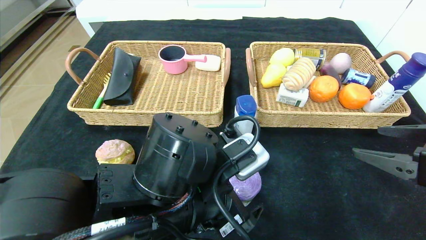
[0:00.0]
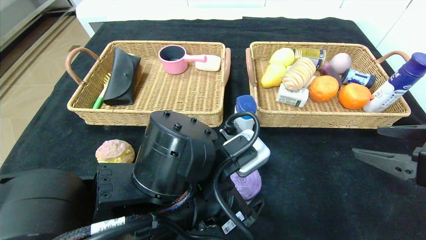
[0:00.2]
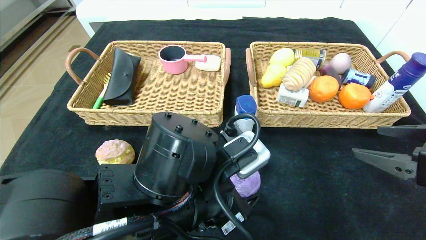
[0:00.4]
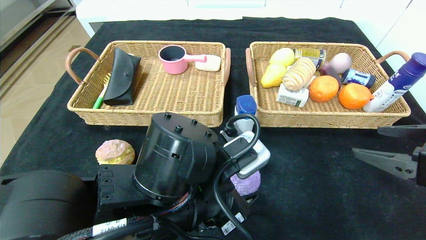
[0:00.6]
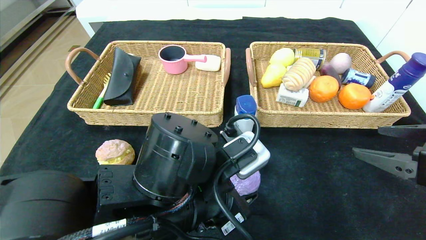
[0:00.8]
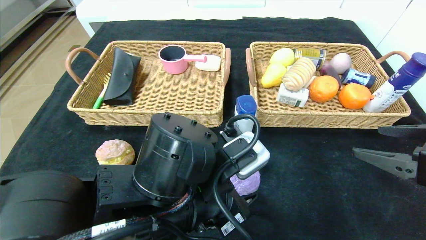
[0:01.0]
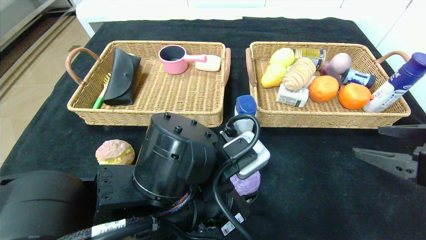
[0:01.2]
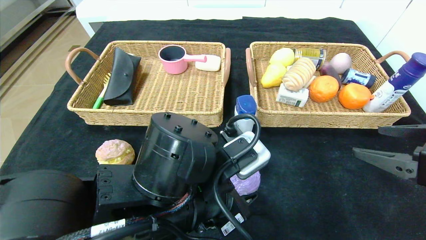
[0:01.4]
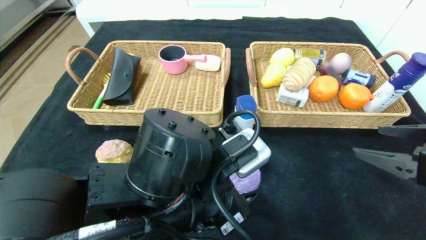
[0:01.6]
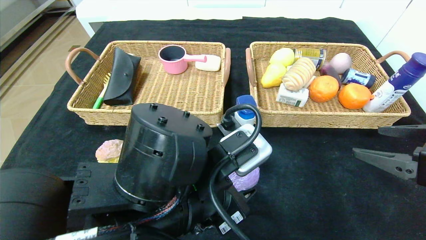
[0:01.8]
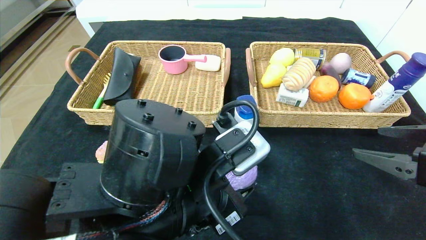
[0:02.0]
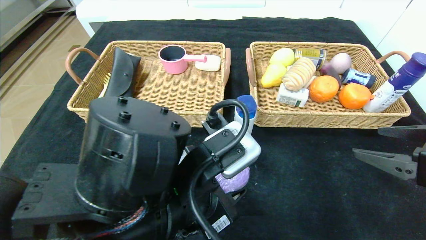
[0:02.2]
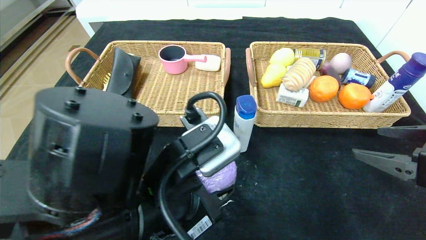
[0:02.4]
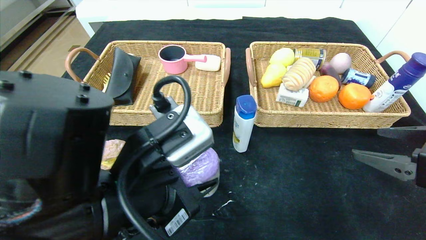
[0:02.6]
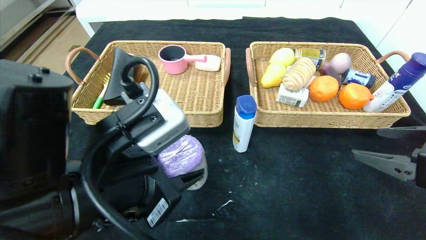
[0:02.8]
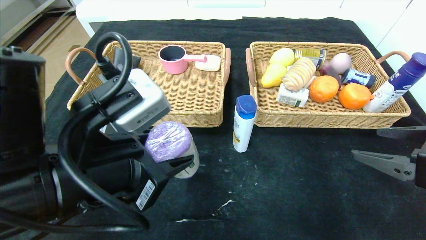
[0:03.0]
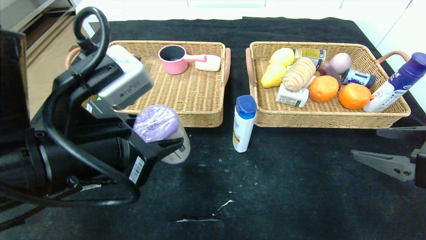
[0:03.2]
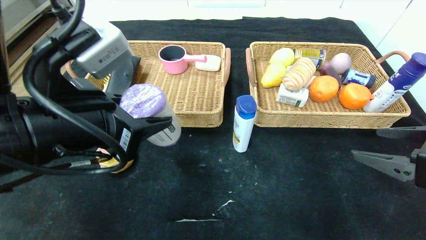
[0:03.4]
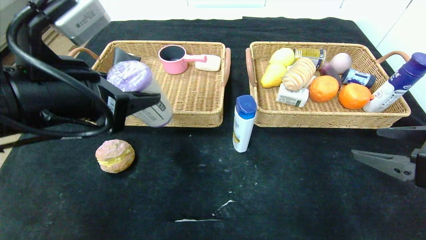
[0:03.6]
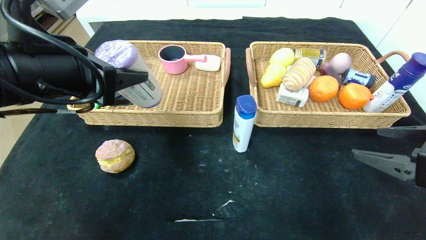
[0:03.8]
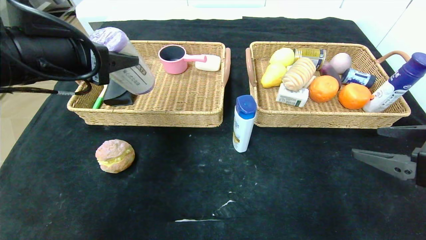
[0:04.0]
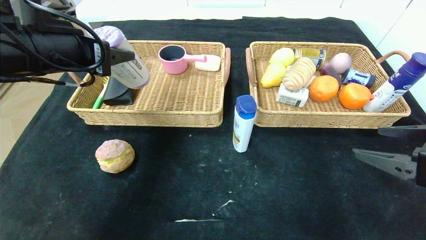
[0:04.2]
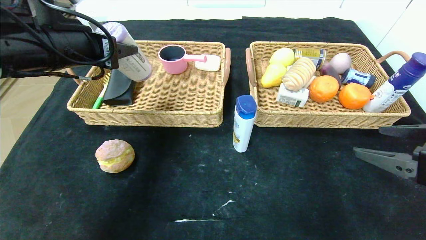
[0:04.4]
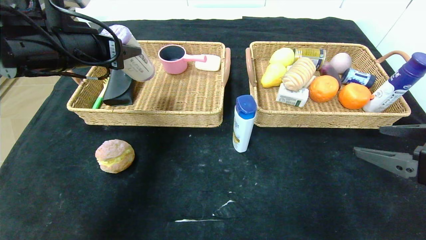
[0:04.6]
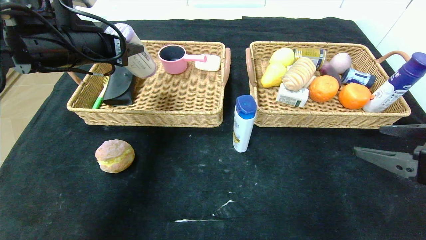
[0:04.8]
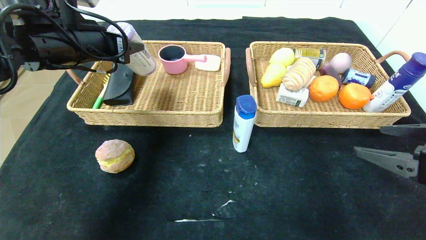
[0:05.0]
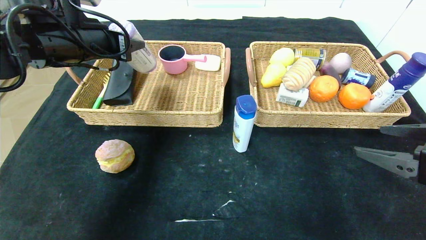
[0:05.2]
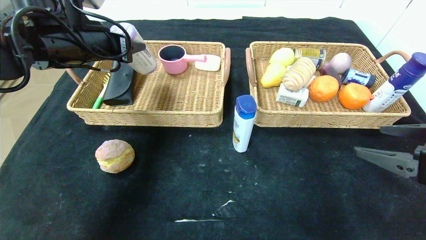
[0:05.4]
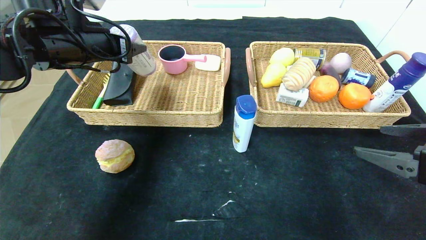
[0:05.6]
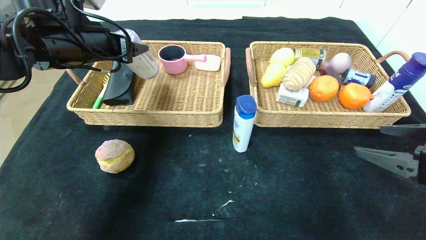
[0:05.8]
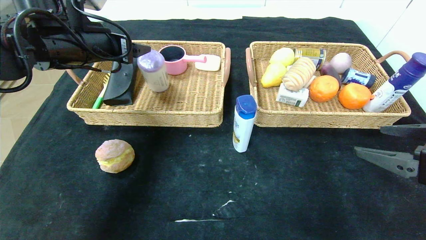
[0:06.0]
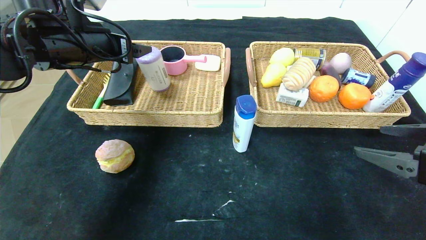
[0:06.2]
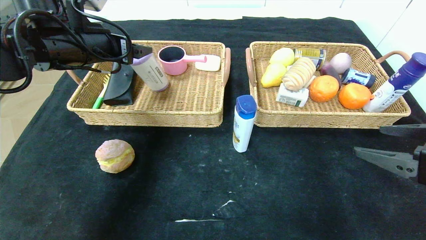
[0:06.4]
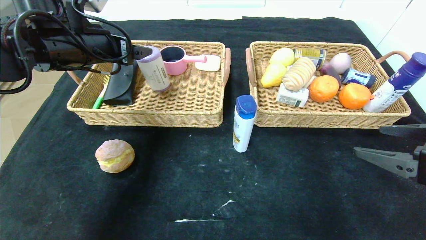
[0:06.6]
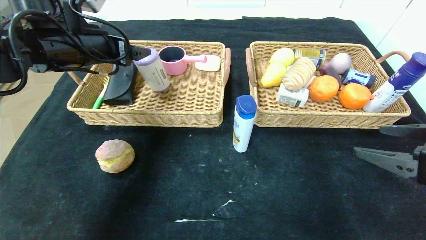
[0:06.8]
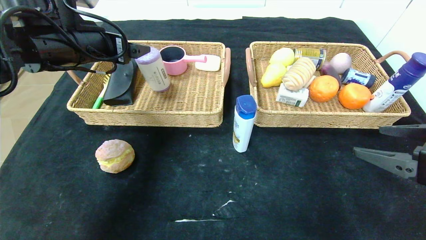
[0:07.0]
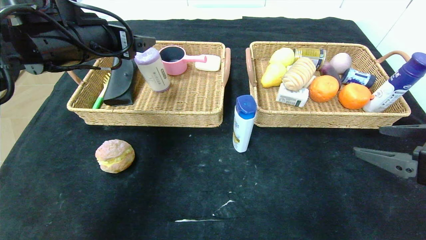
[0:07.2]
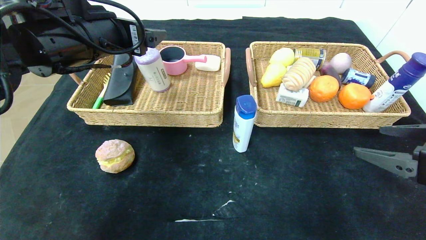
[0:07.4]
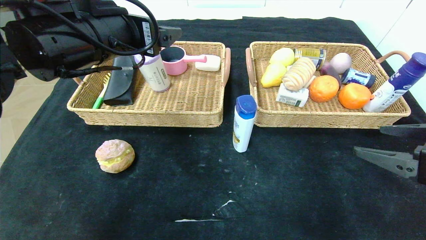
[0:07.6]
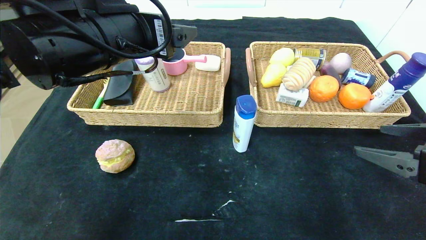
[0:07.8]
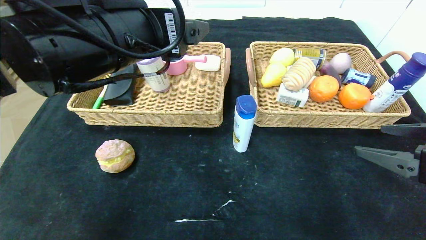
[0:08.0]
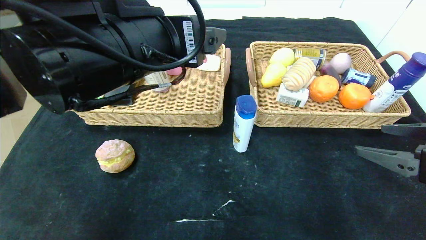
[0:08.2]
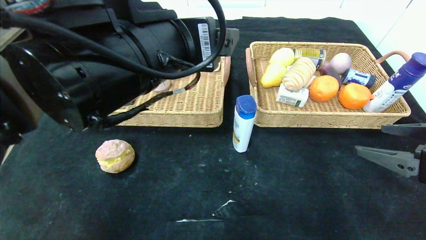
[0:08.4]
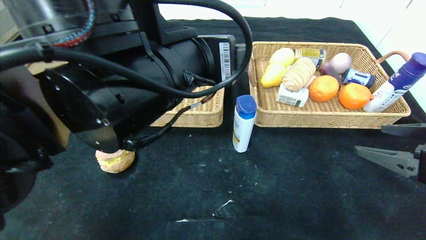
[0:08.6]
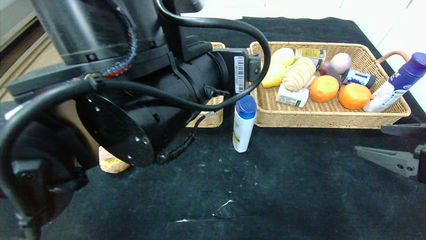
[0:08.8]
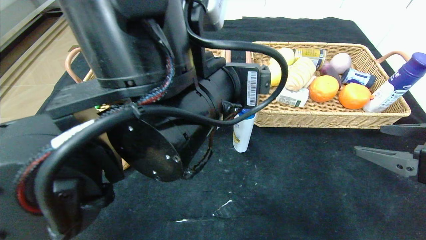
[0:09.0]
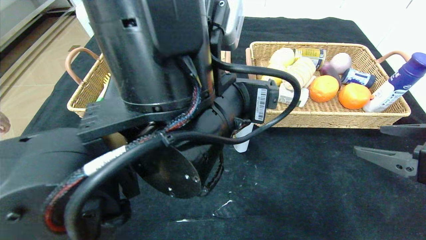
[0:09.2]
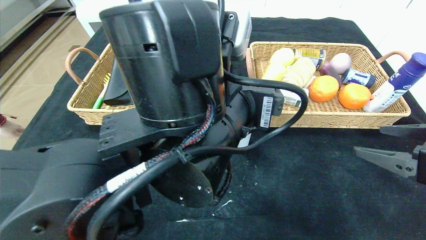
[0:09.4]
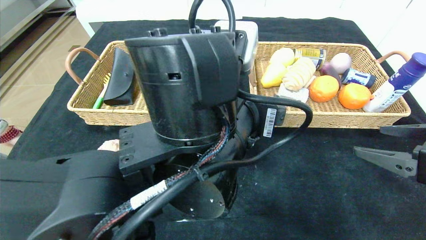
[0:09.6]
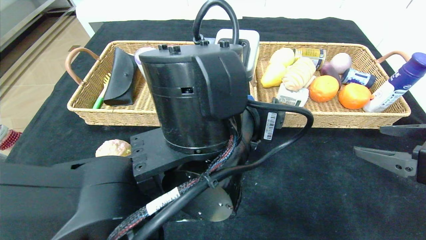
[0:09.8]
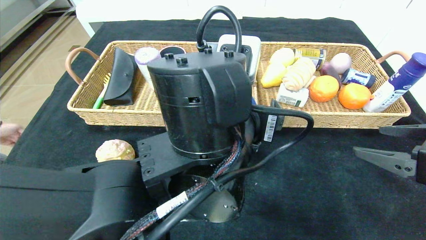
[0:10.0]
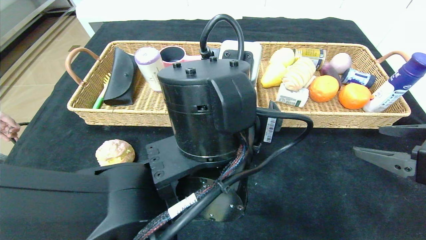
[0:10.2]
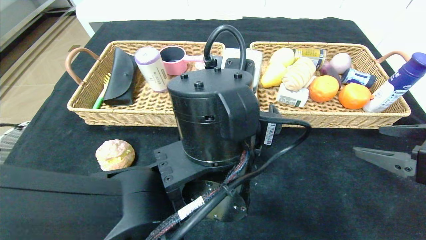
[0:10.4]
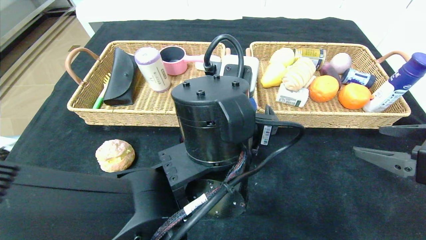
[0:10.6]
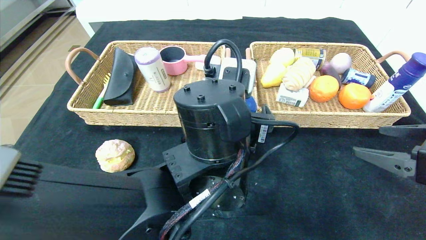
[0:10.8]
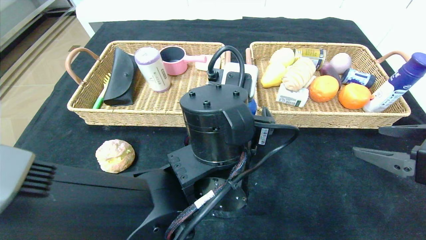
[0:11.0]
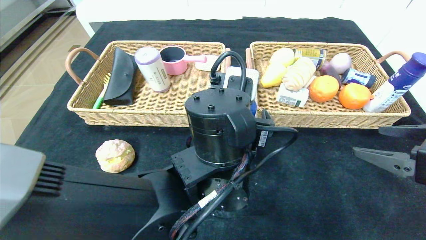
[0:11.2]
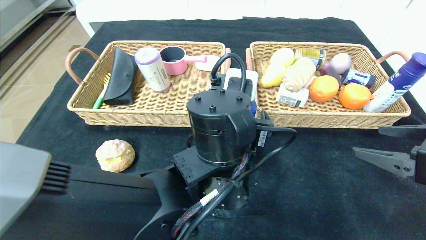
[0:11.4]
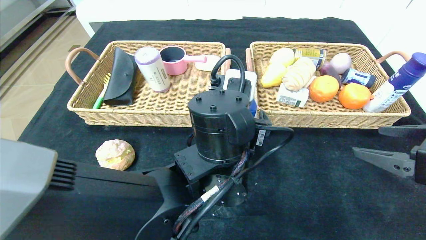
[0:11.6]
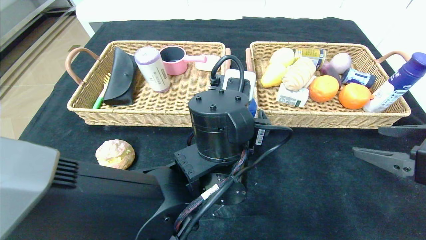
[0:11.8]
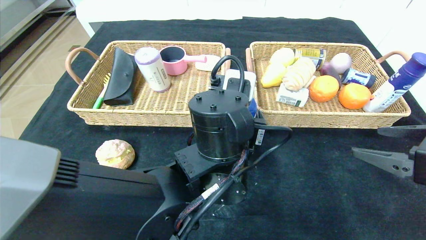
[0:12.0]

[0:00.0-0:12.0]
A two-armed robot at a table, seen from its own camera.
Step, 0:00.0 to 0:10.0: Pick up the purple garbage bag and put it in the left basket.
0:00.0 to 0:01.6: The left gripper closes.
0:01.6 to 0:03.0: The left gripper goes approximately 10 cm to the left and upward.
0:03.0 to 0:04.4: The left gripper is displaced forward, to the left and upward by some 20 cm.
0:04.4 to 0:06.0: The left gripper goes roughly 5 cm forward, and opens its fingers.
0:06.0 to 0:07.6: The left gripper heads to the right and backward, covering approximately 10 cm.
0:07.6 to 0:09.0: The left gripper is displaced to the right, backward and downward by approximately 15 cm.
0:09.0 to 0:10.4: The left gripper travels downward by about 5 cm.
0:10.4 to 0:12.0: There are only small adjustments of the grippers.

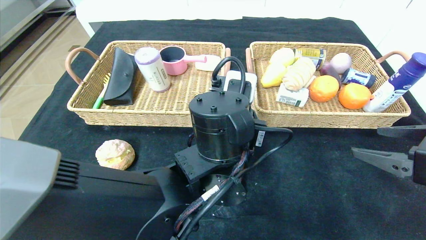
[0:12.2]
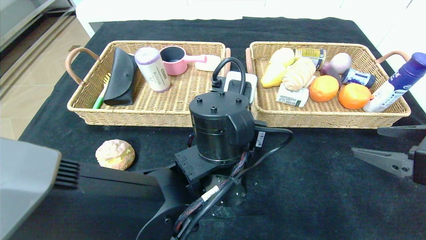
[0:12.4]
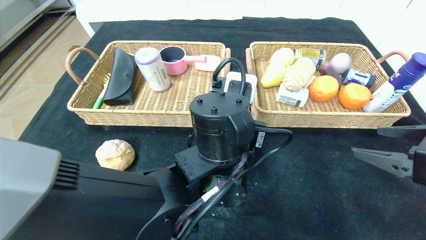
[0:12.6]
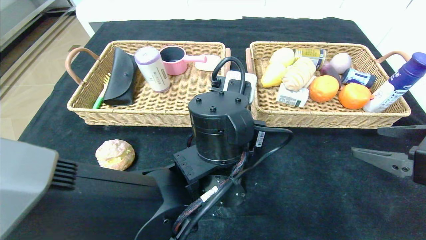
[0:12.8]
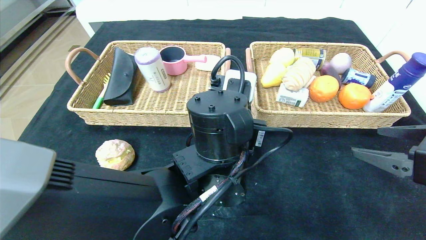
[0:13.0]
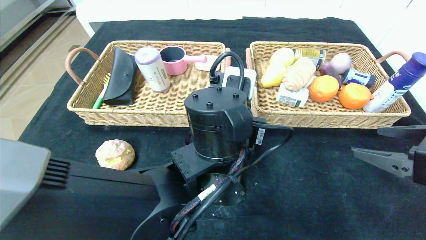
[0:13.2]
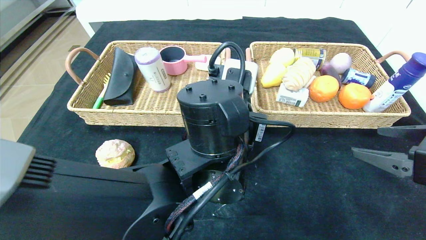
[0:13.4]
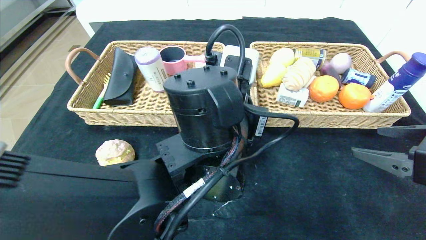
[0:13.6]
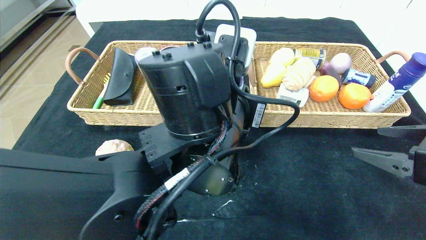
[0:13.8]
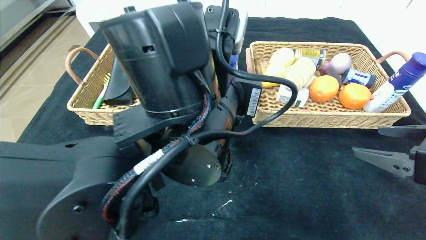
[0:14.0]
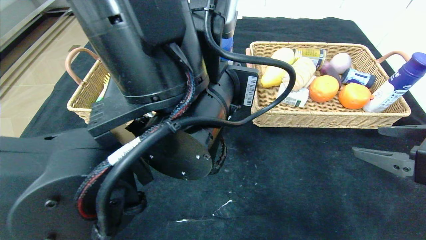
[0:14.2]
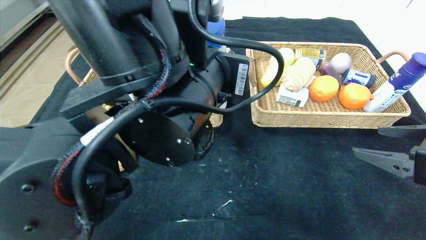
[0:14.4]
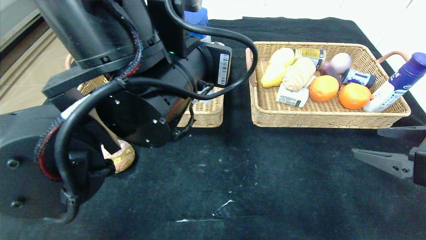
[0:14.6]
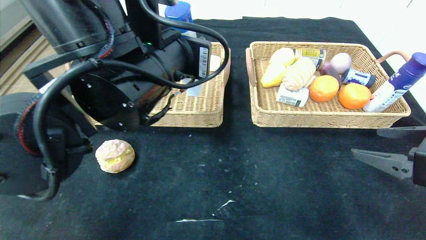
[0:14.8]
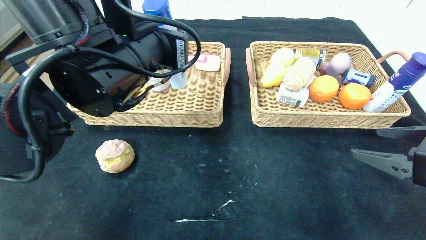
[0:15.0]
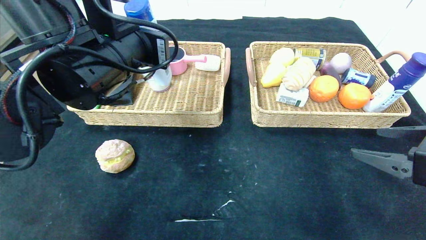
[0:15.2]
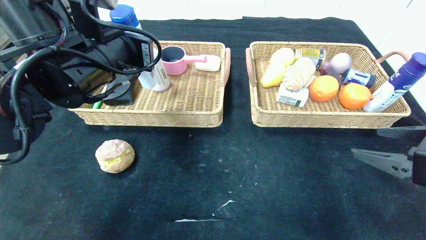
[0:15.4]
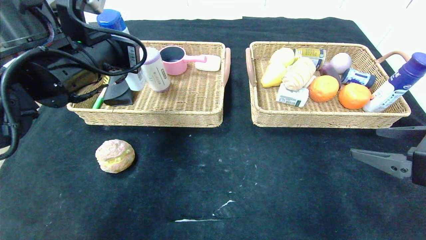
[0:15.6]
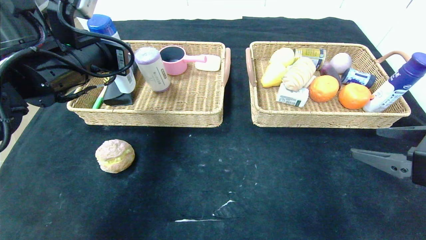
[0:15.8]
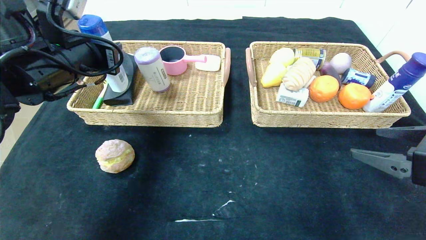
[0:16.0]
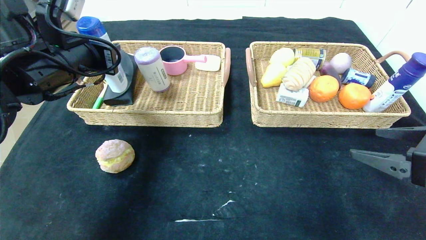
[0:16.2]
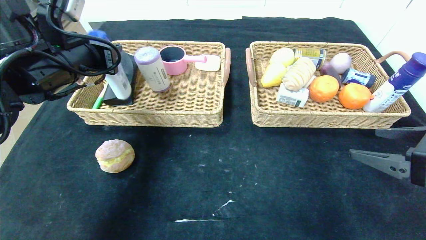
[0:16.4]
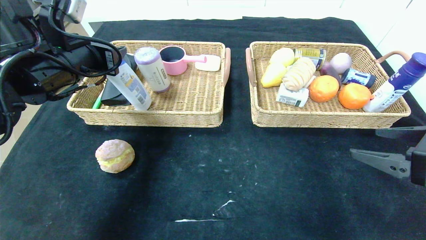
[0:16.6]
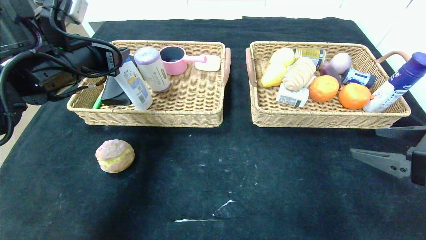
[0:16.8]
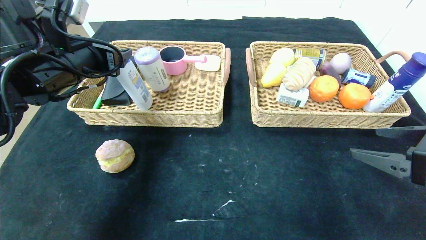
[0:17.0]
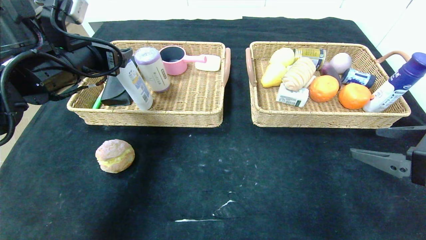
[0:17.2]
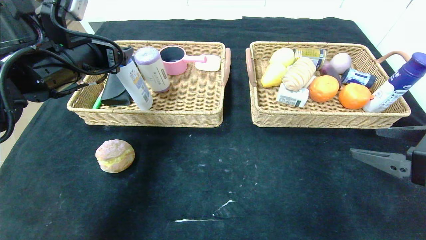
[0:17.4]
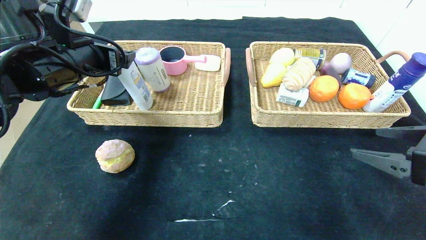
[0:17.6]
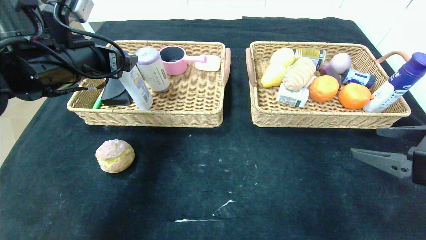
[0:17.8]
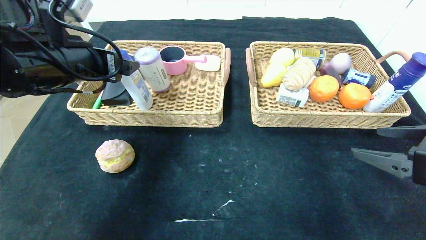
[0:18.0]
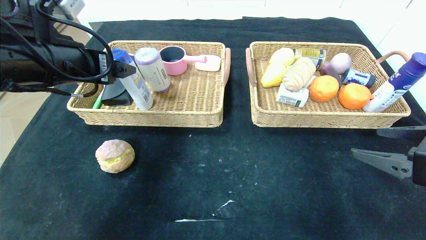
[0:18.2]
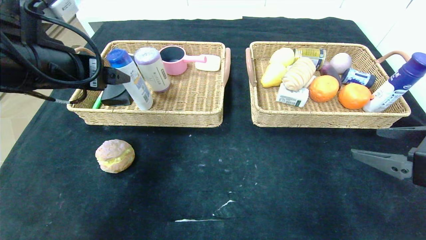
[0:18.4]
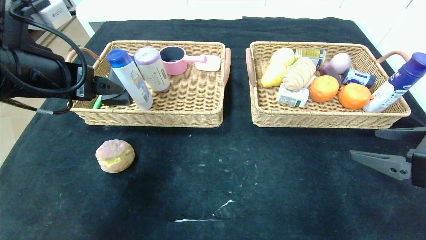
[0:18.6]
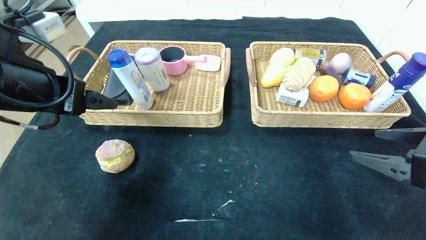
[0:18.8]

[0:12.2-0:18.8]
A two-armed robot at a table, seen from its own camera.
0:12.2 to 0:13.8: The left gripper travels upward by about 5 cm.
0:13.8 to 0:15.4: The left gripper travels to the left and forward by some 20 cm.
0:15.4 to 0:17.2: The left gripper travels to the left by about 5 cm, and opens up.
0:17.2 to 0:18.8: The left gripper shifts roughly 10 cm backward.
